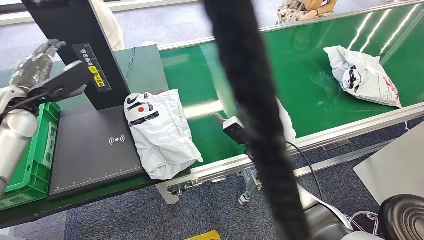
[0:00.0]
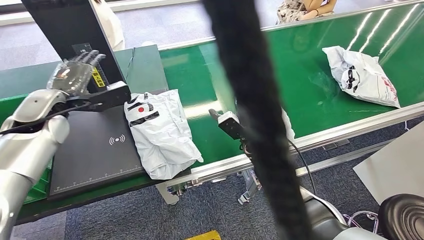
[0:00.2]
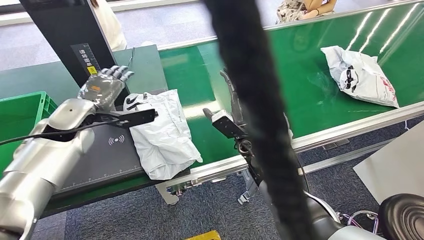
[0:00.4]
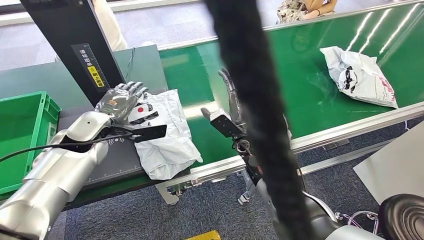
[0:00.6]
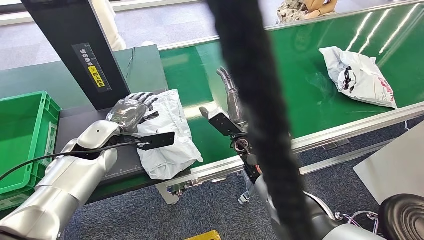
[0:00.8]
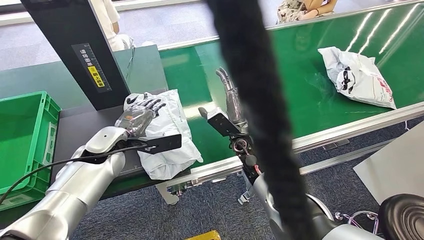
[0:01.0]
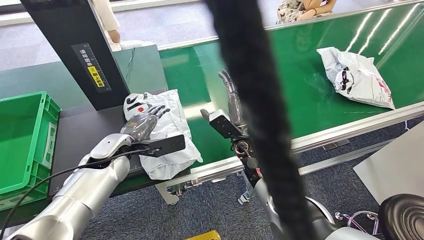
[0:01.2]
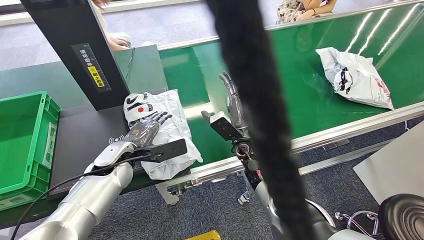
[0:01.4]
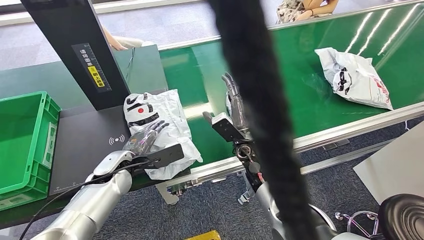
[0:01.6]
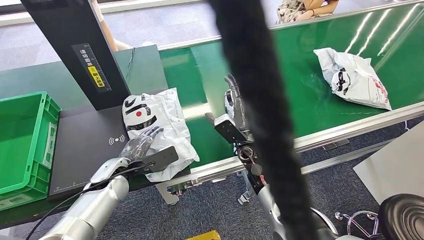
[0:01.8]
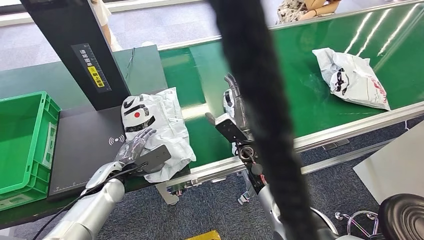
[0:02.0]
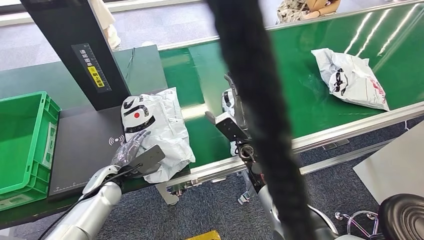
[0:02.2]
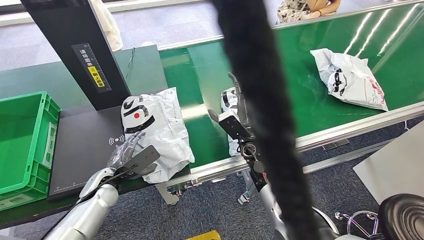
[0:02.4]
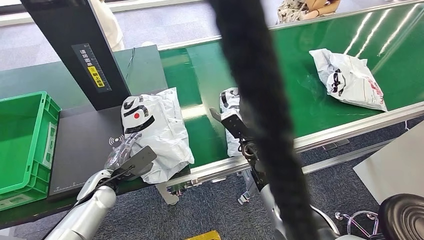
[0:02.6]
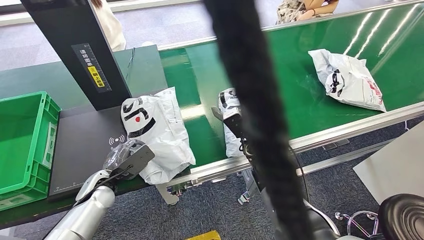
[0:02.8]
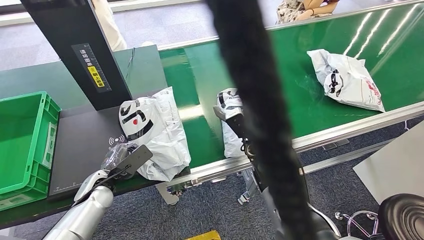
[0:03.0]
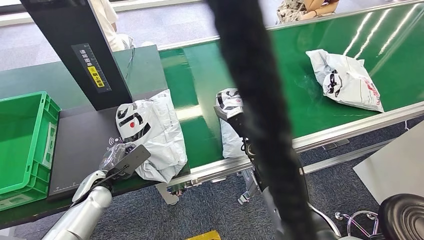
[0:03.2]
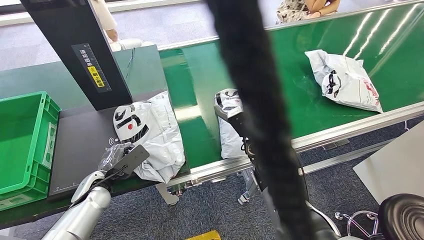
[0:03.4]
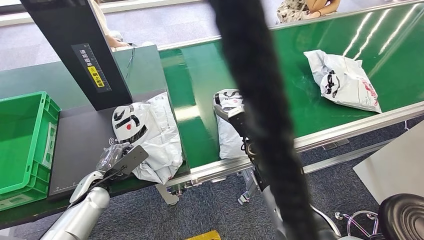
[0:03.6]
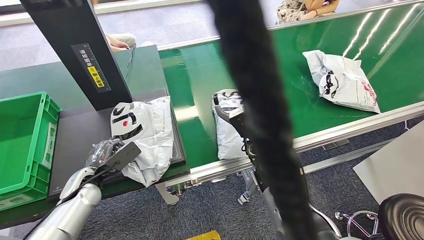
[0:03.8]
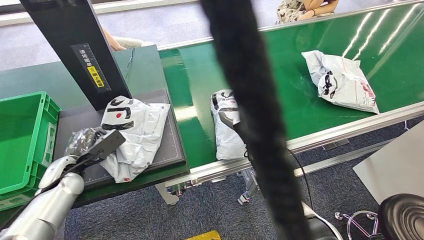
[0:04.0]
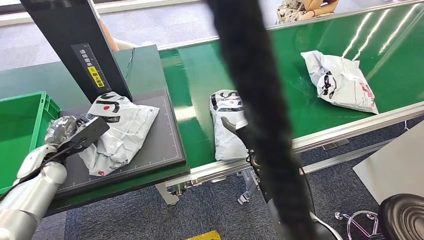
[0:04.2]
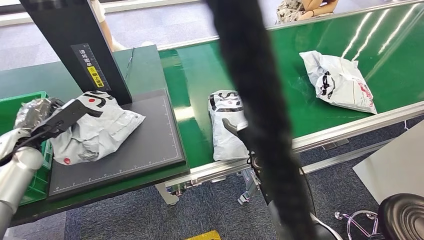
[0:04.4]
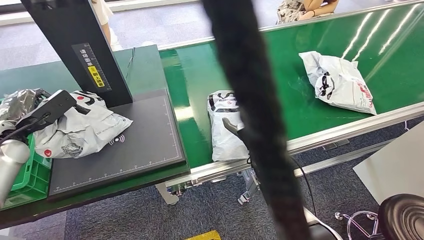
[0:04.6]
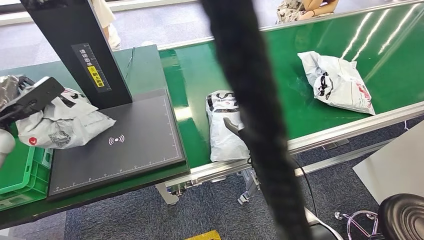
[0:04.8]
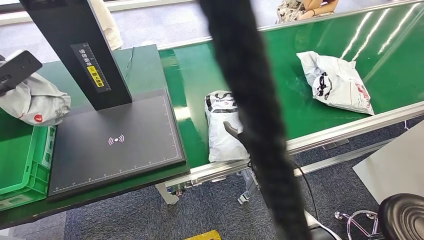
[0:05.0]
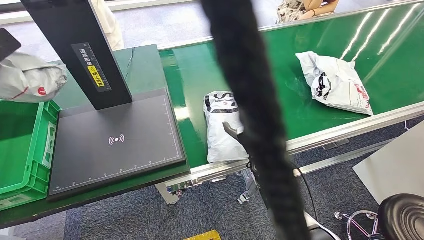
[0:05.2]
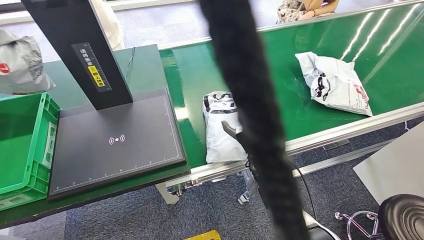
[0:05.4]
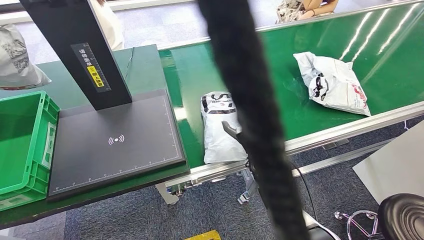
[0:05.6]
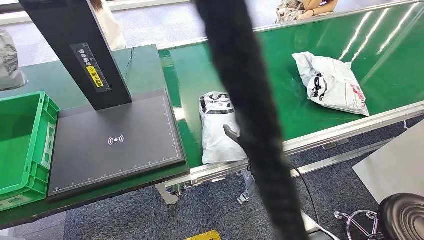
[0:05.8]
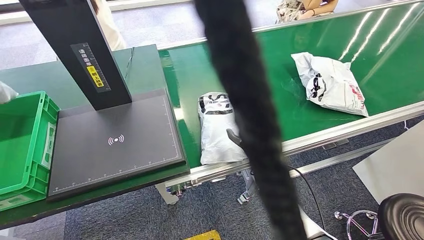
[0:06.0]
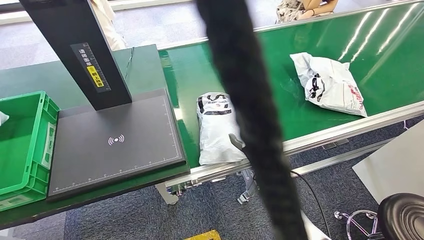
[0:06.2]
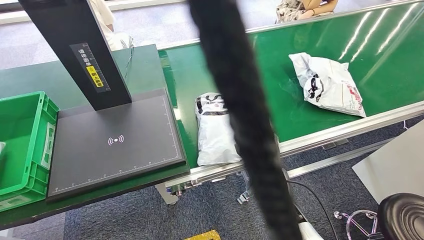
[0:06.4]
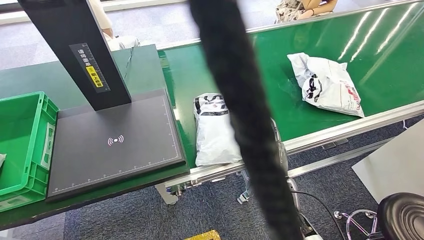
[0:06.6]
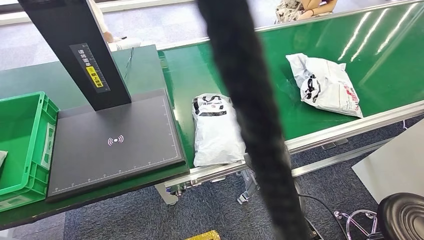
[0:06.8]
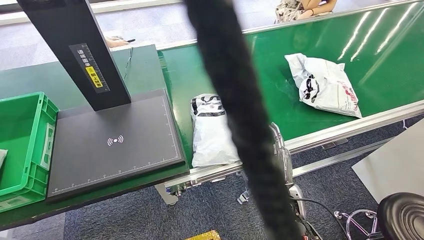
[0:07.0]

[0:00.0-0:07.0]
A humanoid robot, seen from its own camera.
Step, 0:00.0 to 0:04.2: Pick up the package from the inbound machine.
Step, 0:04.4 to 0:07.0: Place the package into the parcel locker.
0:01.4 to 0:02.8: The left hand moves downward and to the left, roughly 10 cm.

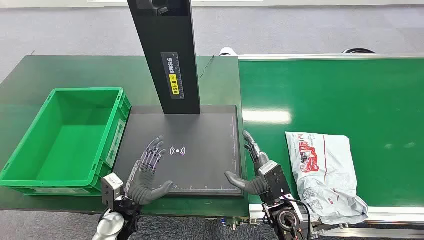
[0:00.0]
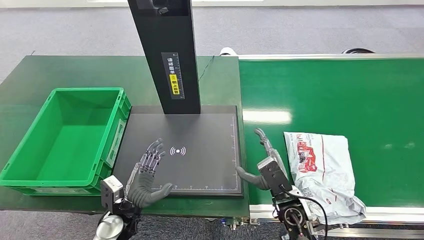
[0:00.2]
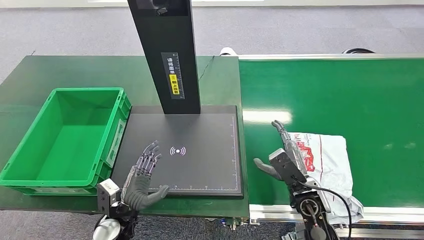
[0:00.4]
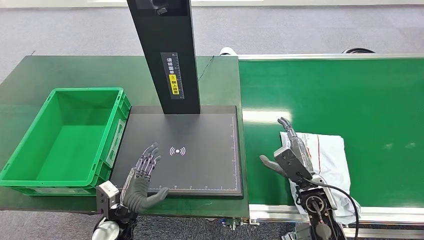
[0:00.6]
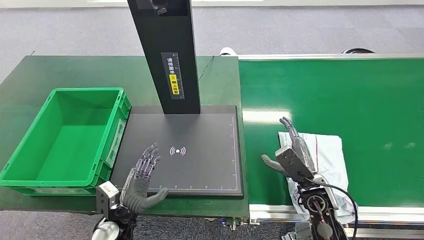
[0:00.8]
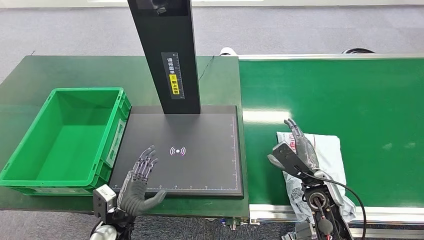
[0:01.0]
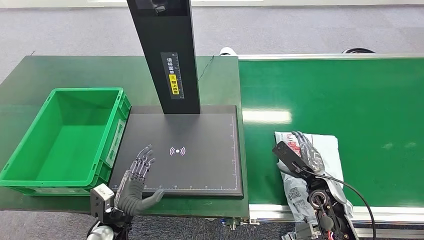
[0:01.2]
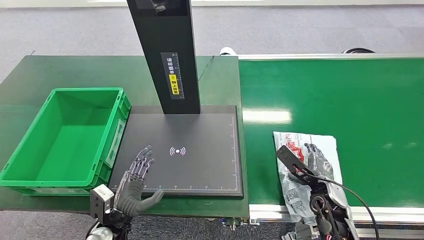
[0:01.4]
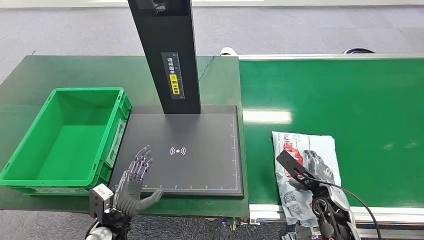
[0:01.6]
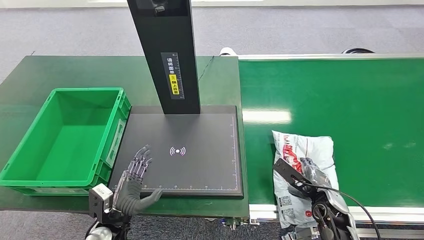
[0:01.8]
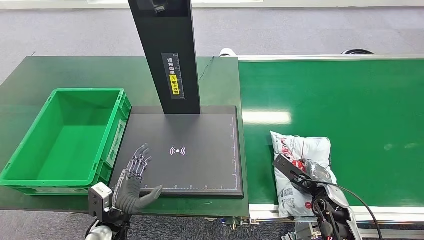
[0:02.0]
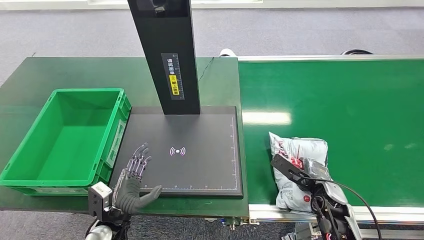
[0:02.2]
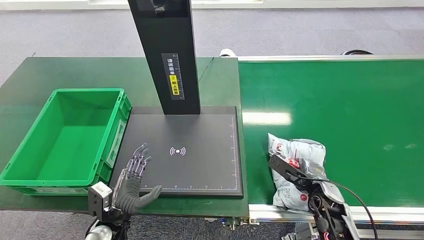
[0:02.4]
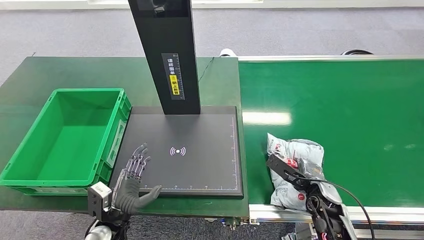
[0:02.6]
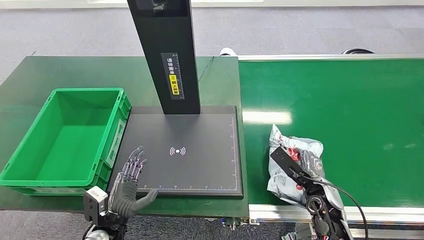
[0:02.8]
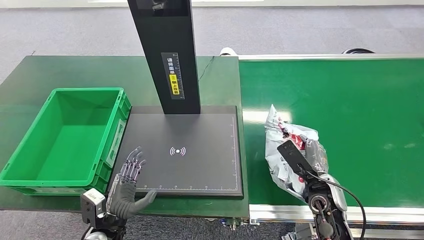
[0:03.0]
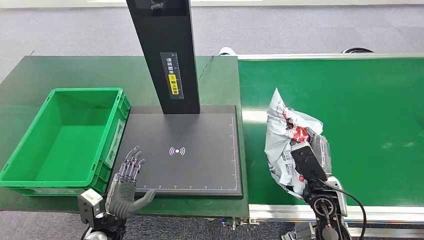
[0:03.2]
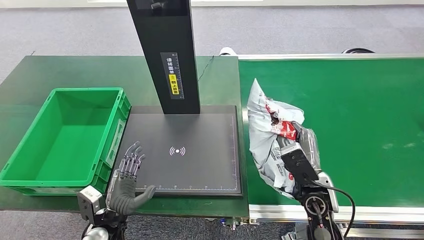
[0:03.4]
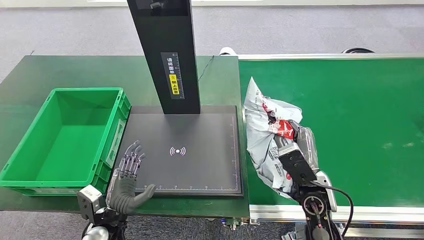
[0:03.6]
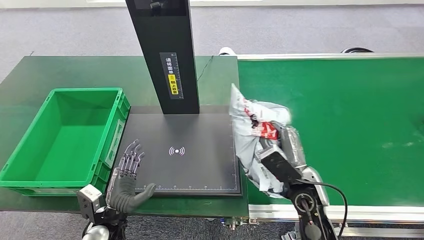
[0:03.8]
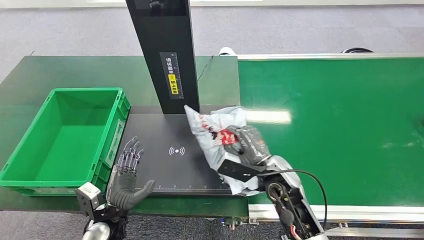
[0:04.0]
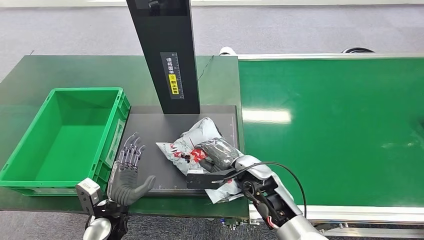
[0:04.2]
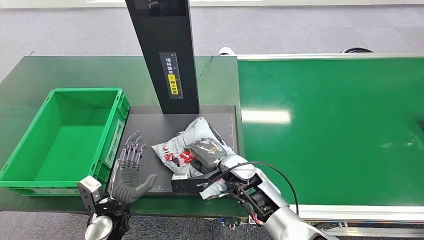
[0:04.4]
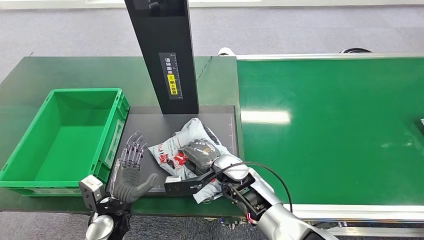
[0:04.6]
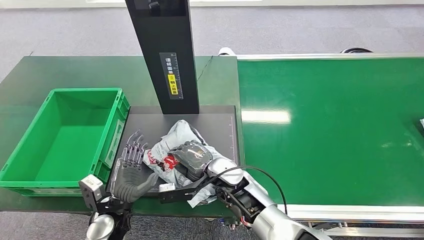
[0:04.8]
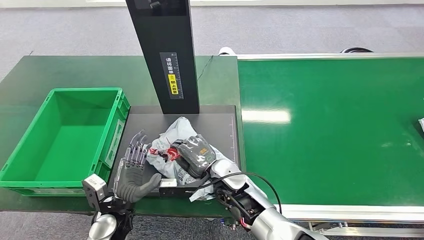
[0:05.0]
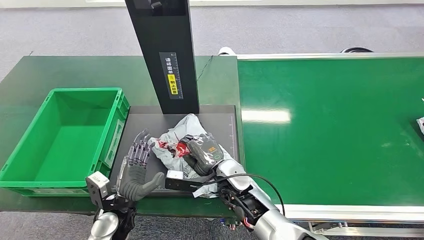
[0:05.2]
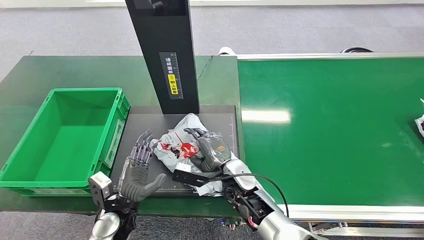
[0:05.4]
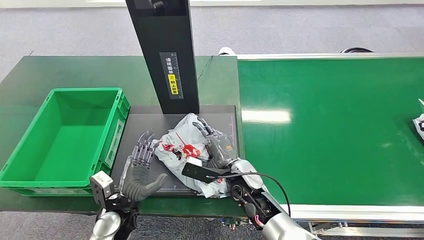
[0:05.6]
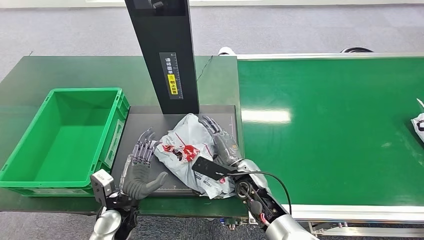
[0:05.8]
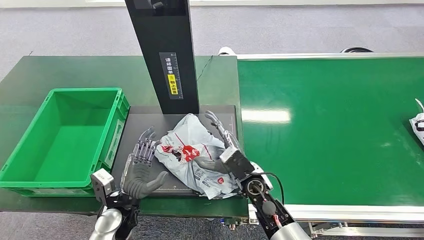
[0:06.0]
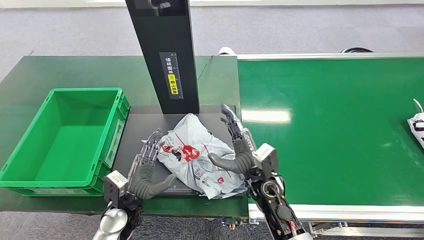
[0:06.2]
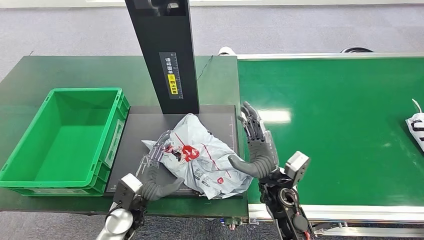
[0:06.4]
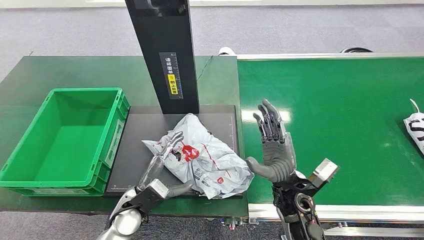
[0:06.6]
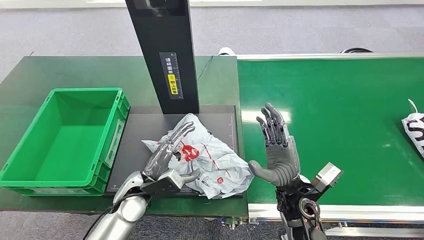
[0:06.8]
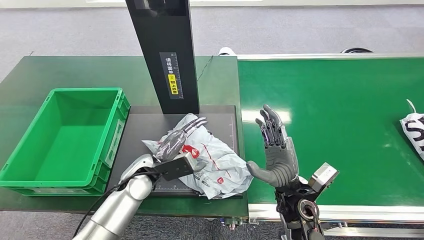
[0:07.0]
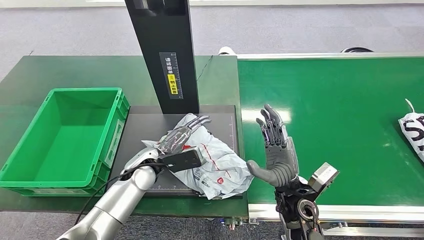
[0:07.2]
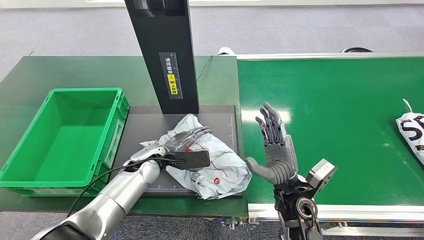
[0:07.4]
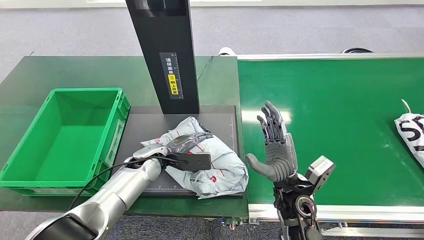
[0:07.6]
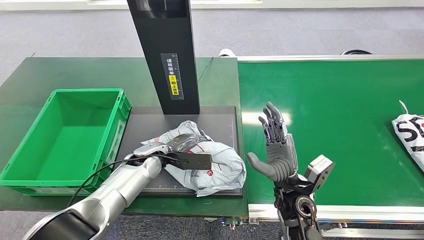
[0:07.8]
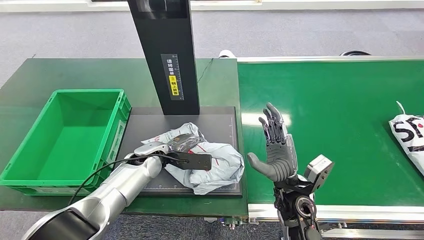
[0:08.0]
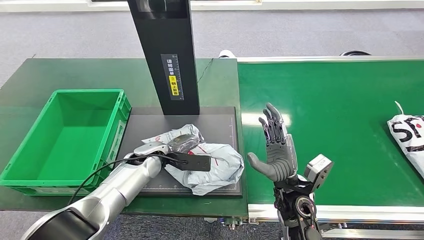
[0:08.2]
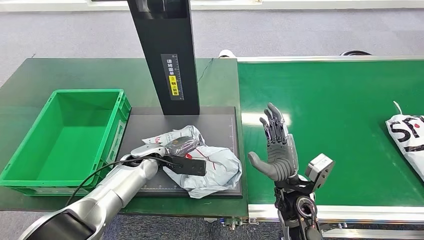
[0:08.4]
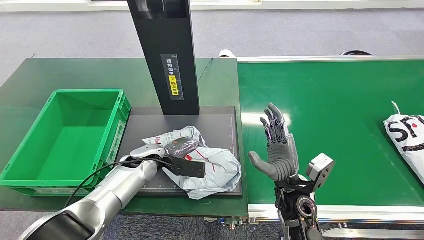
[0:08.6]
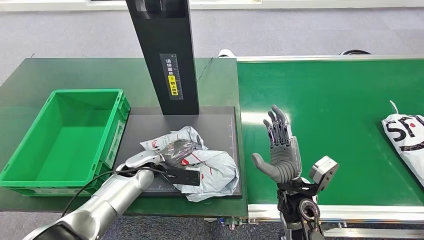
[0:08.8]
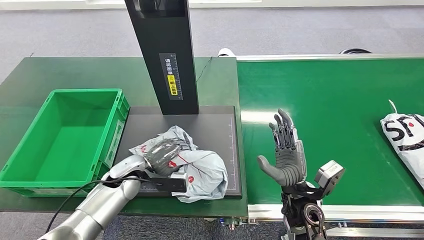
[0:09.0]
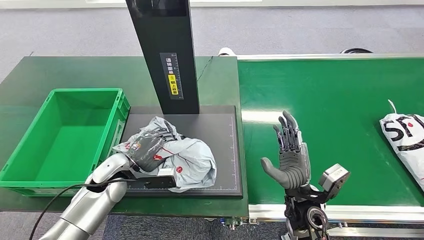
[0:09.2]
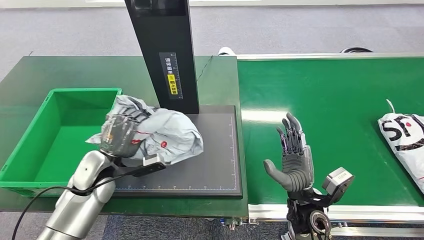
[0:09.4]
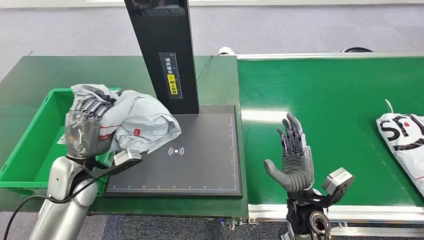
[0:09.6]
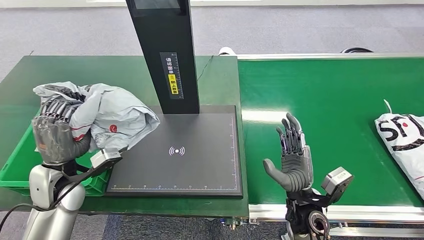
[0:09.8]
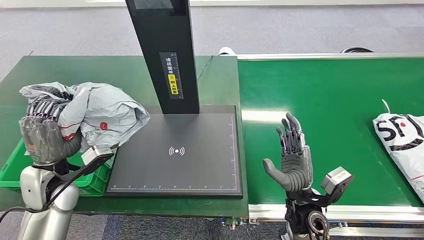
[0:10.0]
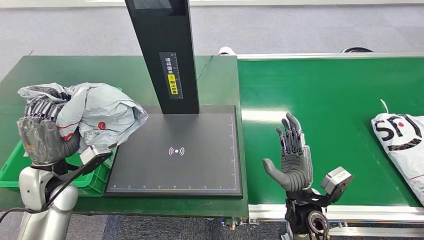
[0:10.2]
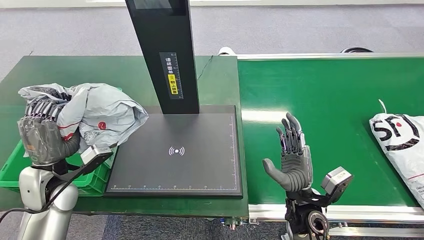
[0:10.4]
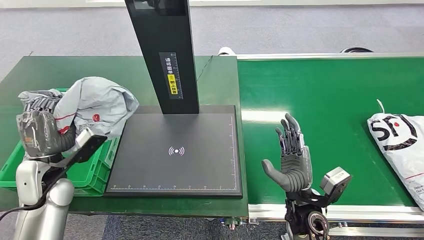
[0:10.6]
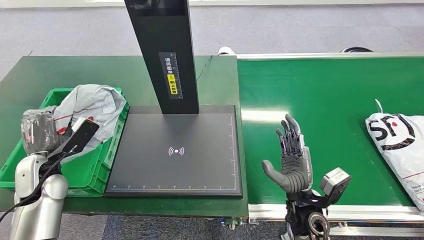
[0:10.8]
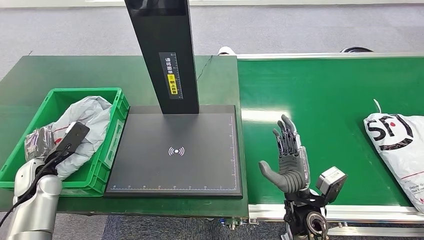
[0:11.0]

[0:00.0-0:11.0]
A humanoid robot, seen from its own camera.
Step, 0:00.0 to 0:03.4: Pick up the package from the conveyor belt.
Step, 0:03.6 to 0:06.6: Place the package onto the inbound machine.
Step, 0:06.8 to 0:09.8: Pick up the package from the inbound machine.
0:01.6 to 0:03.2: The right hand changes place by approximately 5 cm.
0:03.2 to 0:04.8: The right hand moves to the left, some 20 cm.
0:04.8 to 0:06.2: The right hand shifts about 5 cm to the right.
